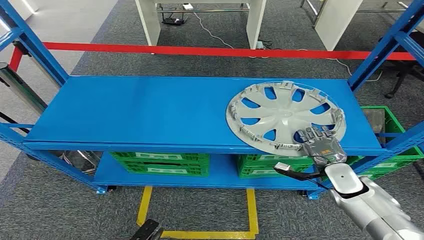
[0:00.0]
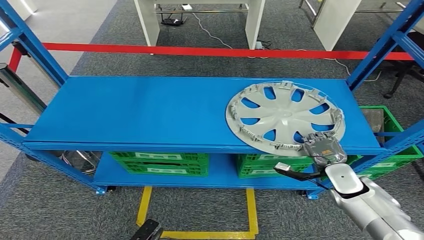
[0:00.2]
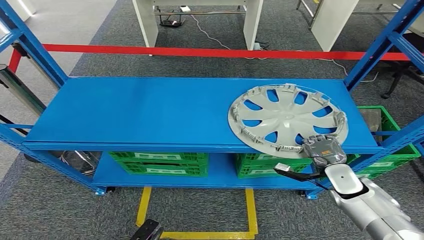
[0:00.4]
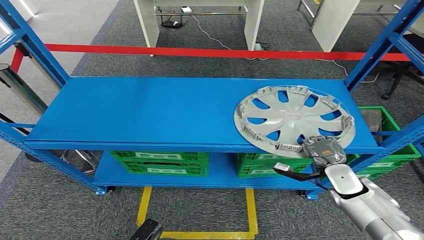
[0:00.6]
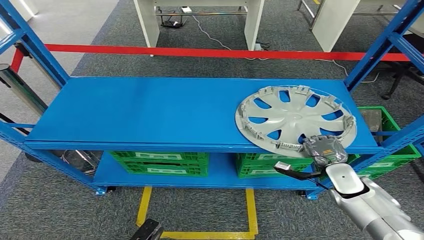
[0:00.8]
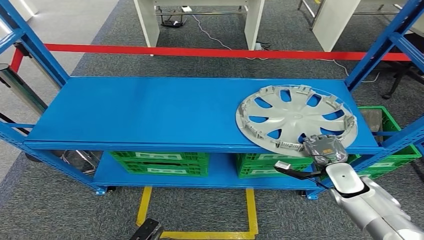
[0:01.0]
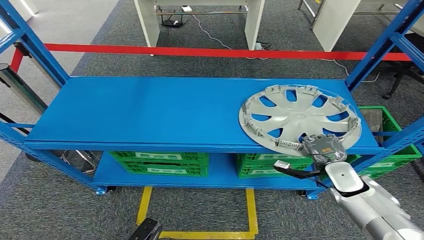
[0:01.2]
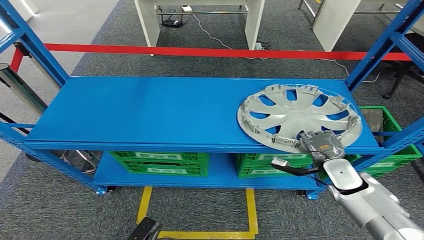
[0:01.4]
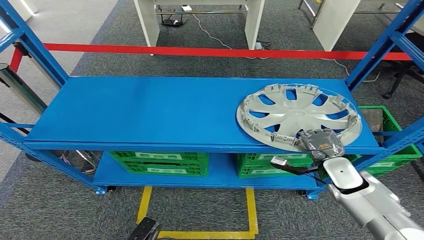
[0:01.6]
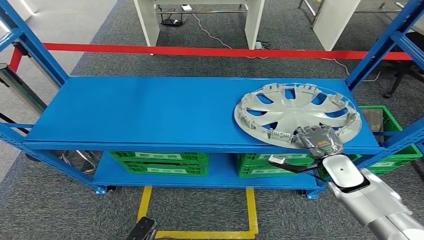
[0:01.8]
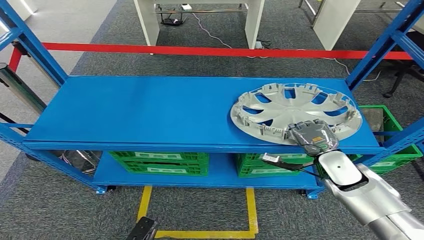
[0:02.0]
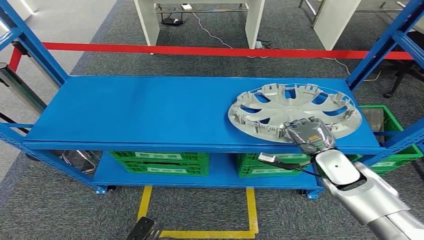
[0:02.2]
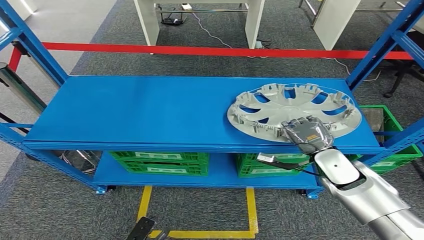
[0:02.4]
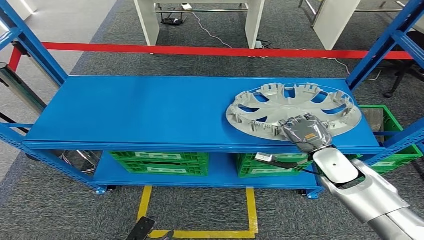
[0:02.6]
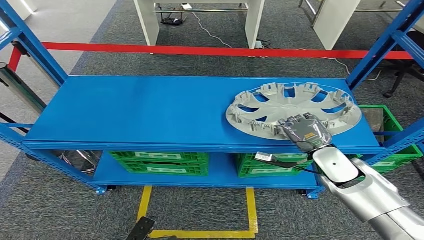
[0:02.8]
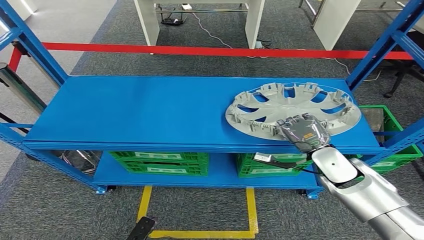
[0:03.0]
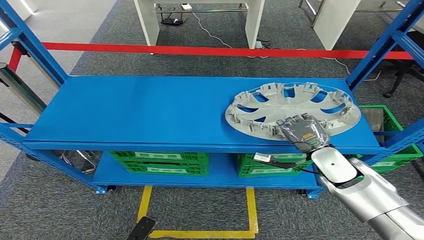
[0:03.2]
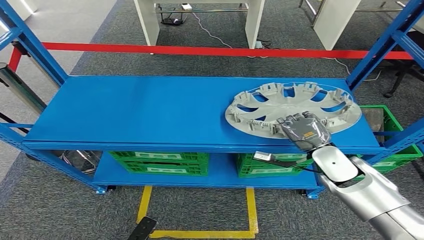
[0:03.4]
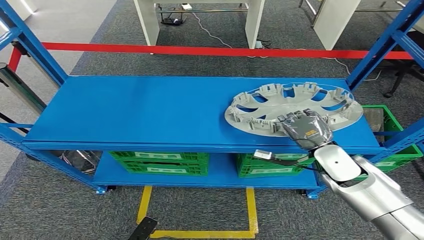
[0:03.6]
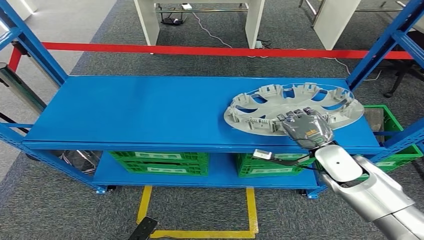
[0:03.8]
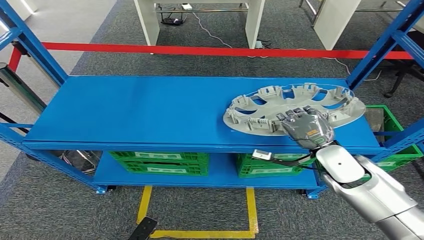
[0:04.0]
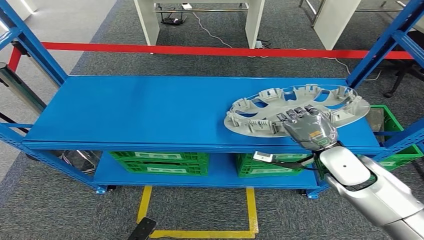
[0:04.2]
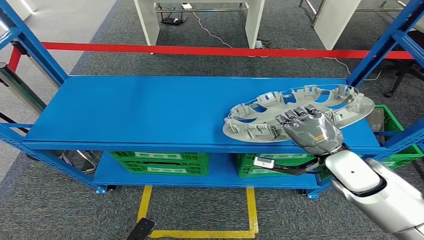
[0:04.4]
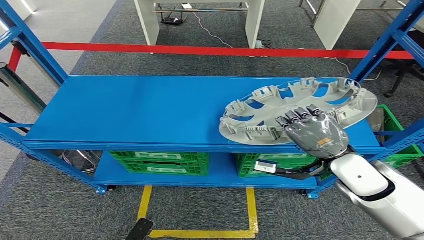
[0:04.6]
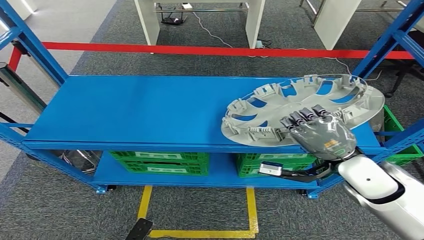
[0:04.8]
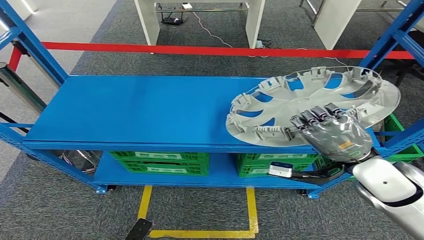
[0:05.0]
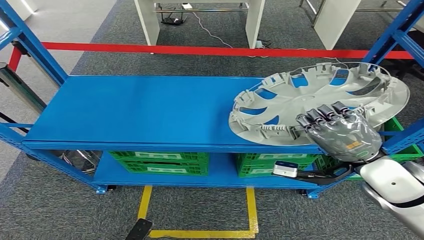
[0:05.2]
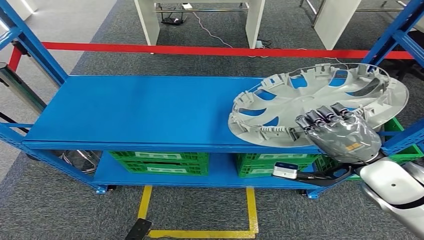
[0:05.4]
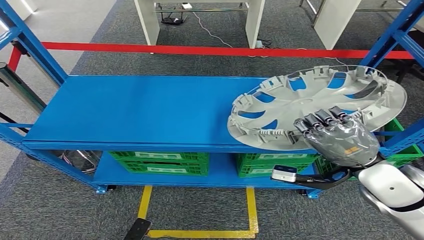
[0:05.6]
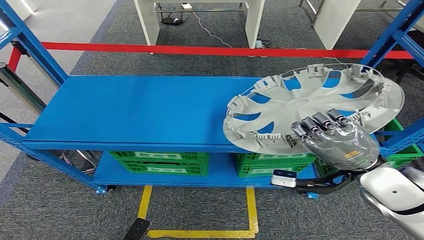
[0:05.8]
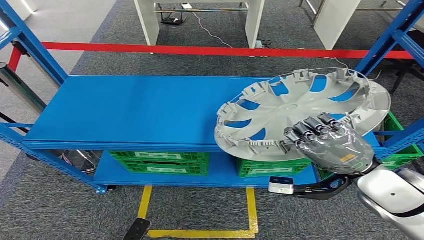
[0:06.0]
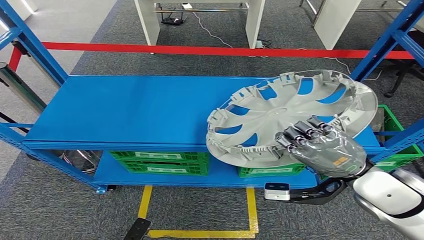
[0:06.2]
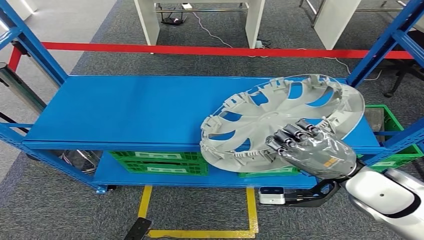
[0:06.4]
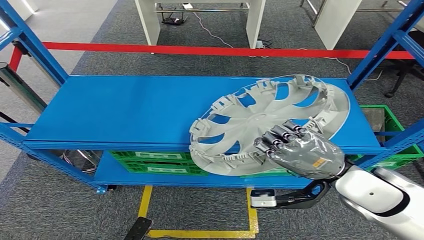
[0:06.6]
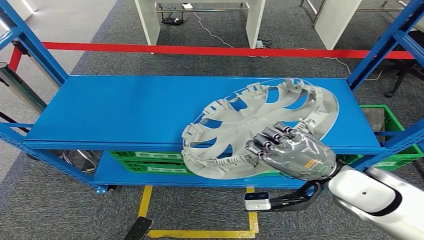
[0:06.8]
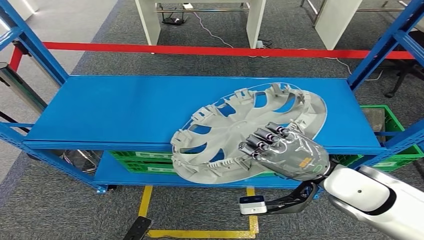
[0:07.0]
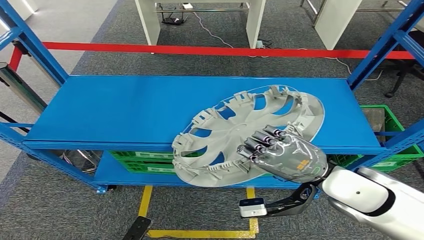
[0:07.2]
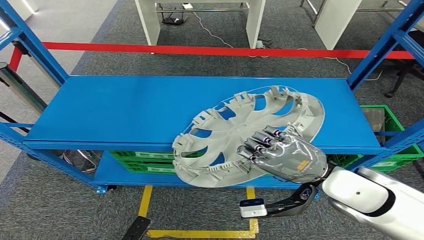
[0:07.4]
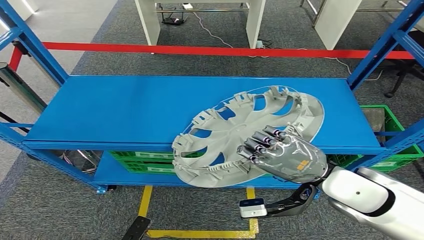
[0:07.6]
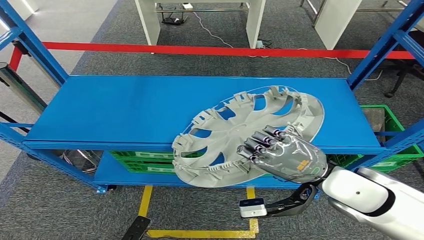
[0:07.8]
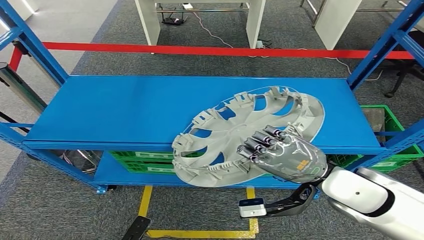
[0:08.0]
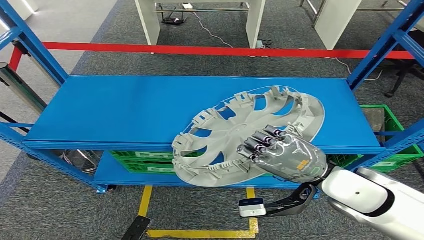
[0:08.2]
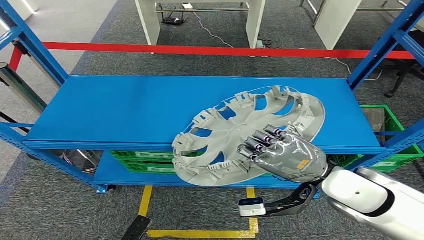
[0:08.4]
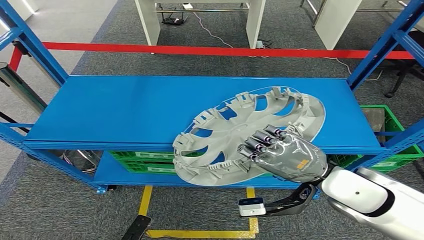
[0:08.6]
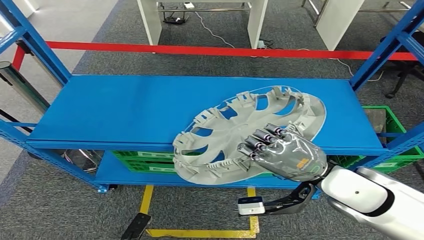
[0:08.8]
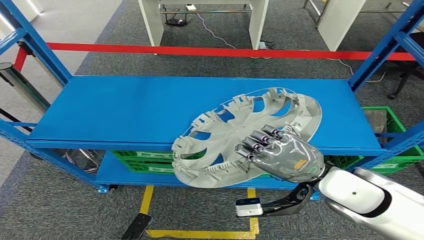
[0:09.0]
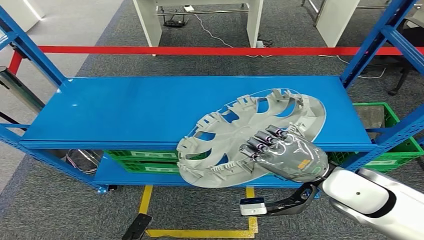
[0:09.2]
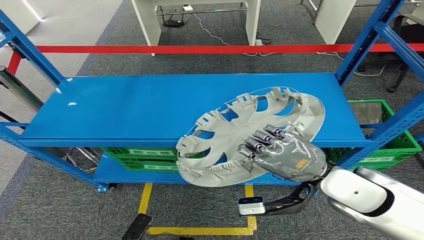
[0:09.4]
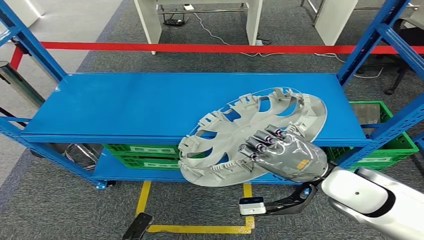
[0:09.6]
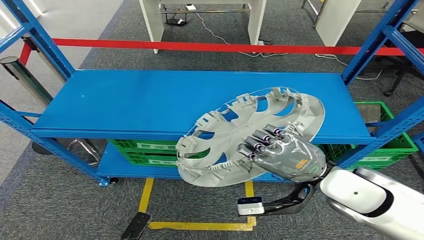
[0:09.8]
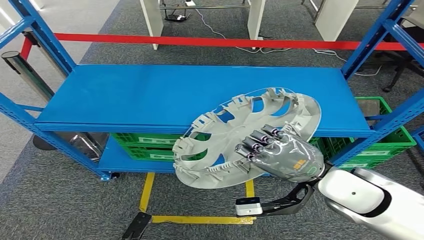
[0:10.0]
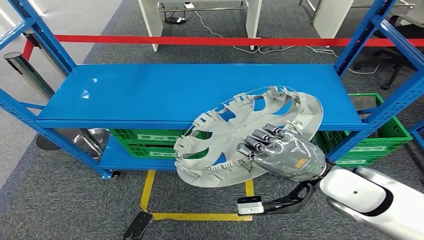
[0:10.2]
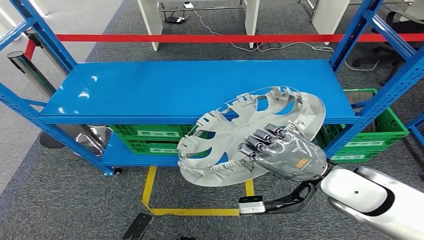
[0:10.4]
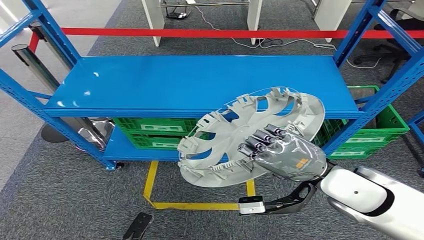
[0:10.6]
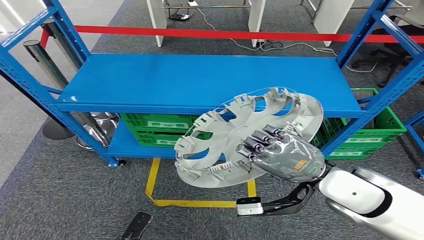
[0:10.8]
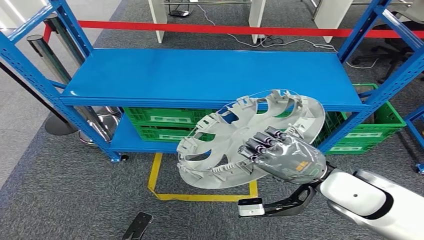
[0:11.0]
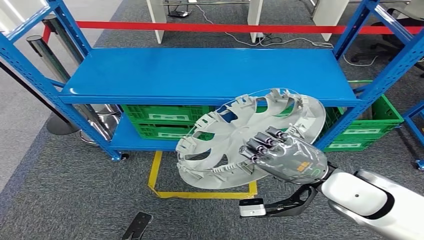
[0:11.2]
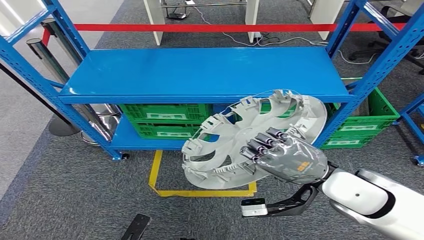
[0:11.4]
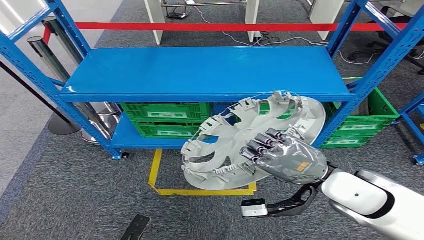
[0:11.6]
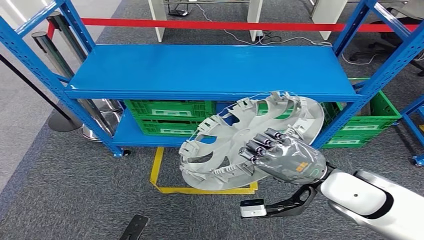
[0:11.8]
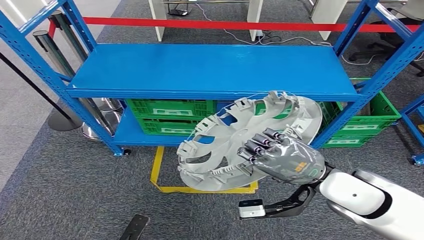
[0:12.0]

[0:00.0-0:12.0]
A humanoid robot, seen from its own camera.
Step, 0:00.0 to 0:11.6: Pick up the small component from the shelf.
0:01.6 to 0:03.0: The right hand travels upward by roughly 5 cm.
0:03.0 to 0:04.4: The right hand travels upward by approximately 5 cm.
0:04.4 to 0:06.0: The right hand moves roughly 5 cm.
0:07.6 to 0:09.0: The two hands keep their place.

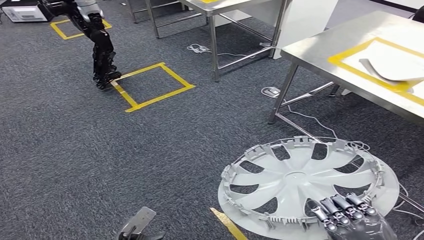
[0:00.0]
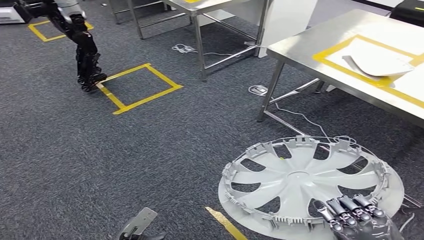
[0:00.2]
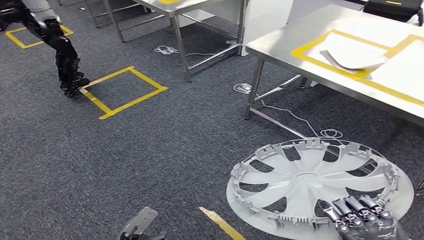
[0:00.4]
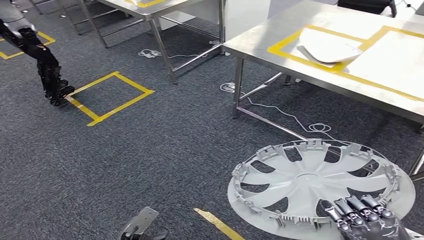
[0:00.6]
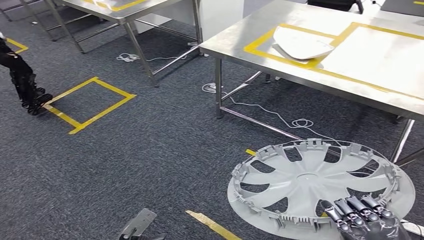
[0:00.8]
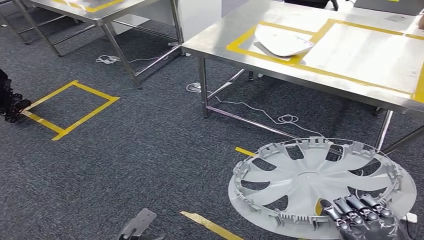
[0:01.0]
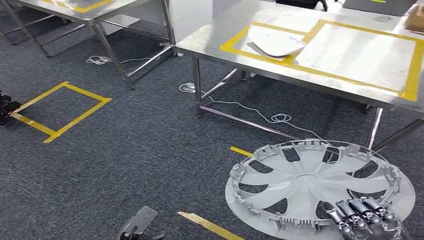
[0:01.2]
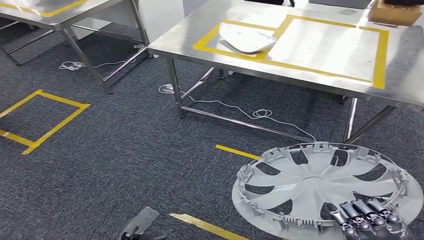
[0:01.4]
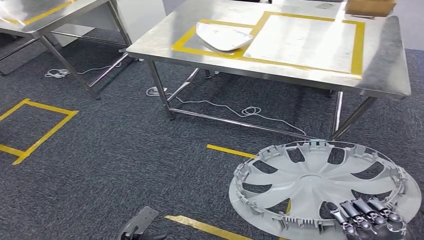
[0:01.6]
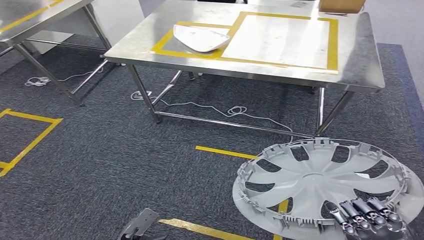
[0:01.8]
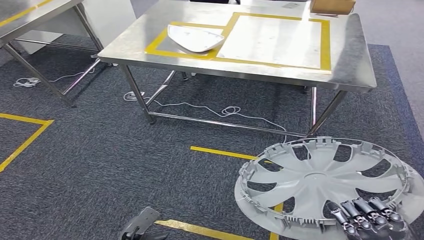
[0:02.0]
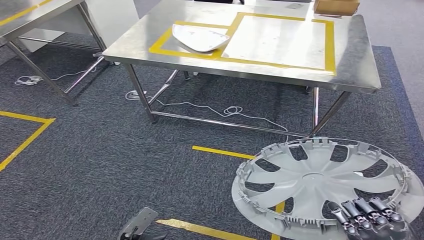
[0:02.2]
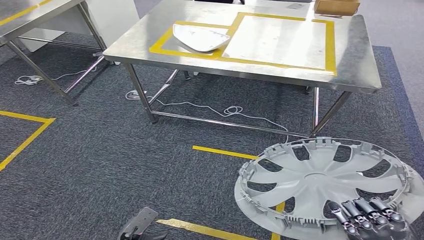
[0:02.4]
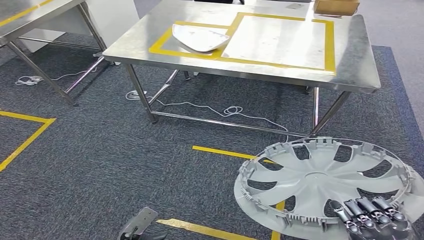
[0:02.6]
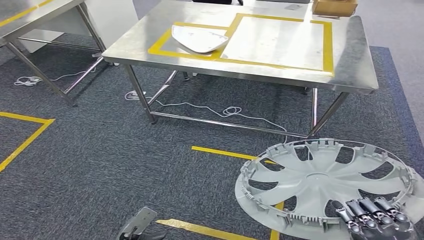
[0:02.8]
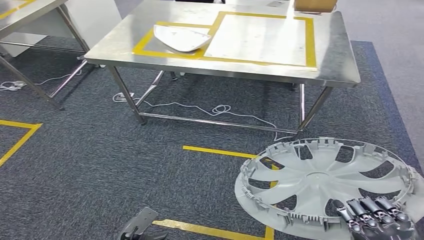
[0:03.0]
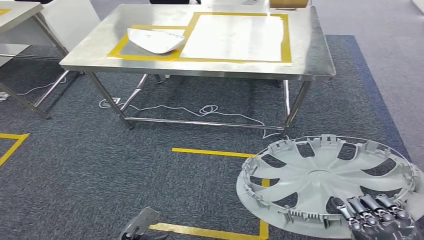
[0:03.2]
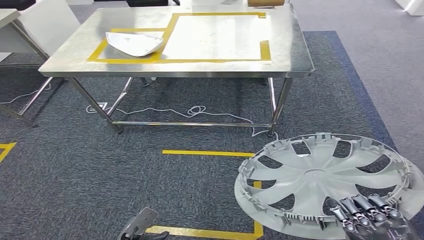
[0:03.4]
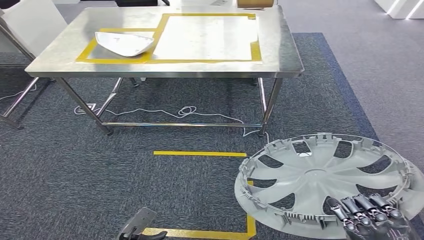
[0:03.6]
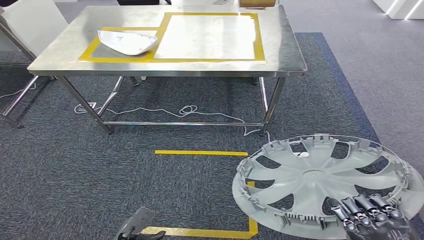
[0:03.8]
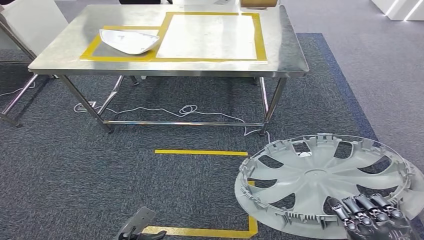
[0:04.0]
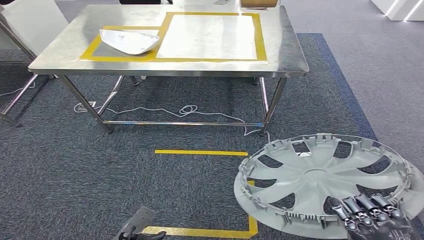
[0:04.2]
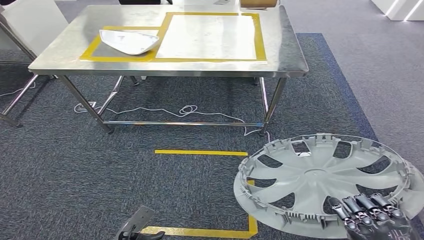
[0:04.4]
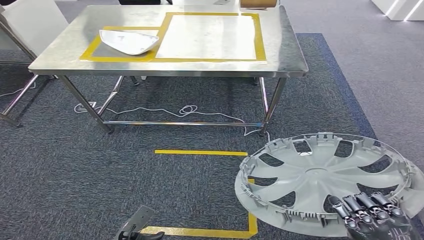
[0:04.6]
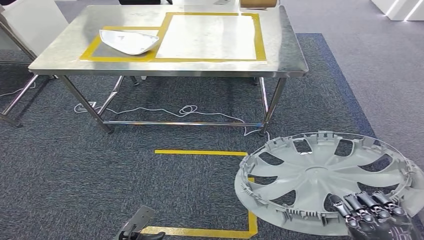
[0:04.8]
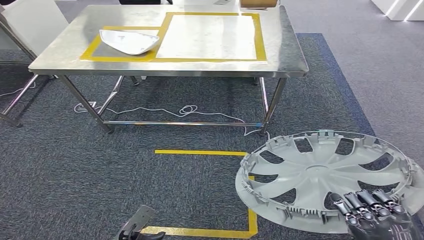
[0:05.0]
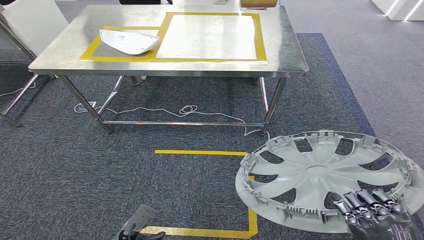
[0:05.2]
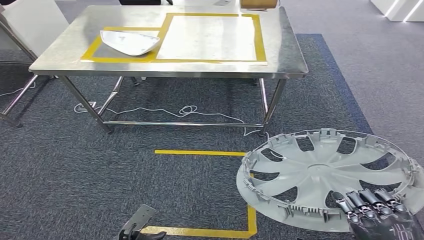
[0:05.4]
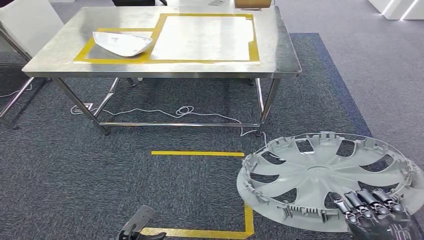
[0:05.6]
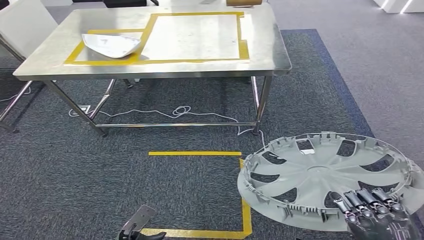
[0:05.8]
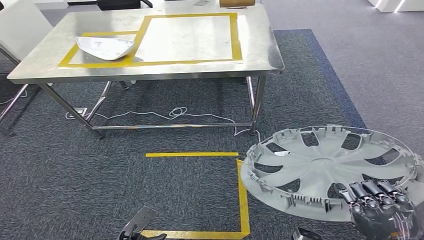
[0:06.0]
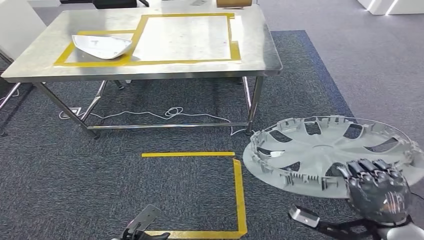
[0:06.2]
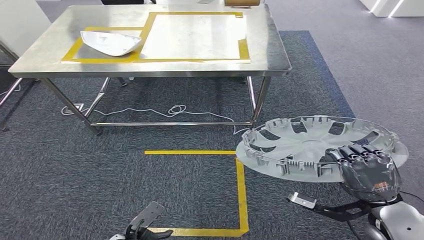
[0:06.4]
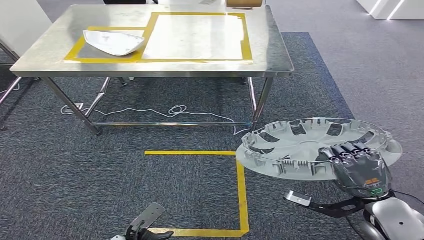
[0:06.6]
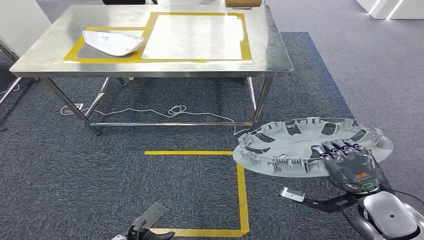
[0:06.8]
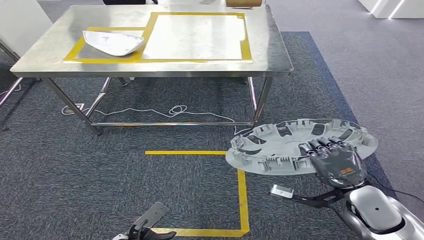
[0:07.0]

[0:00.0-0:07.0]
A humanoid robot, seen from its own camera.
0:04.2 to 0:05.6: The hands move only a little.
